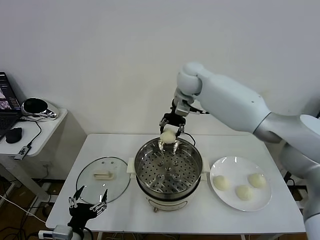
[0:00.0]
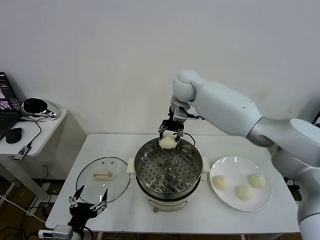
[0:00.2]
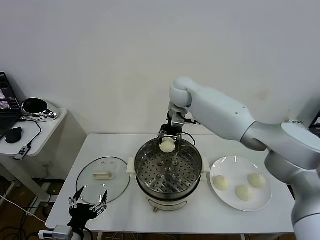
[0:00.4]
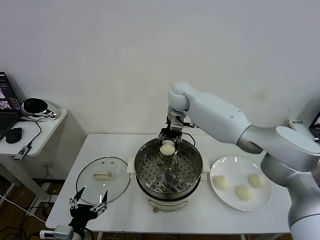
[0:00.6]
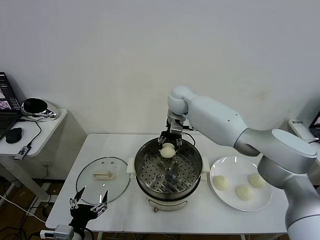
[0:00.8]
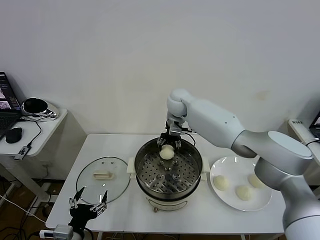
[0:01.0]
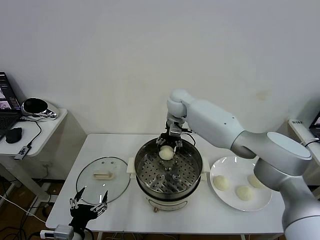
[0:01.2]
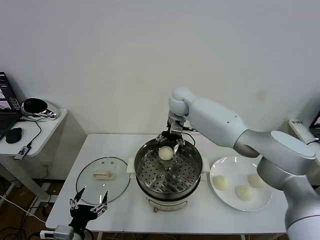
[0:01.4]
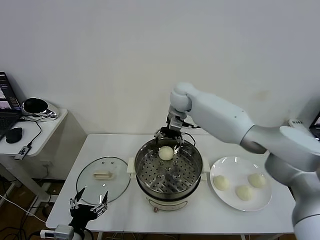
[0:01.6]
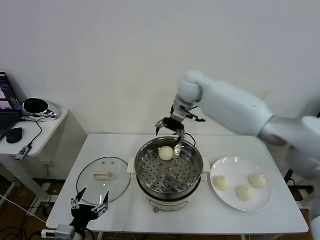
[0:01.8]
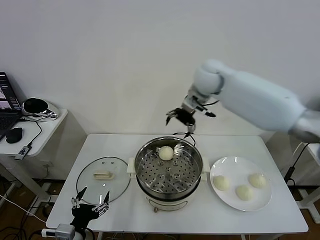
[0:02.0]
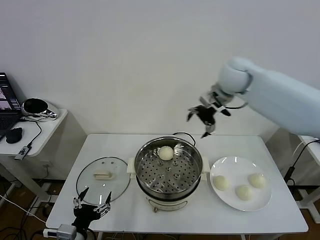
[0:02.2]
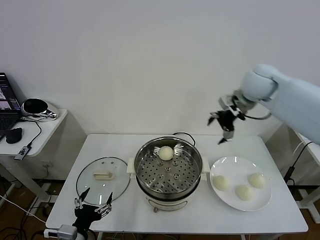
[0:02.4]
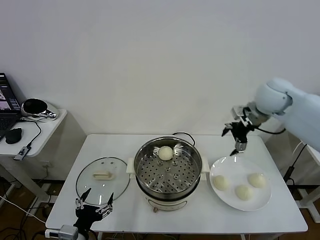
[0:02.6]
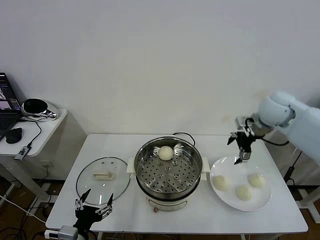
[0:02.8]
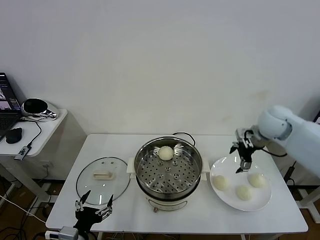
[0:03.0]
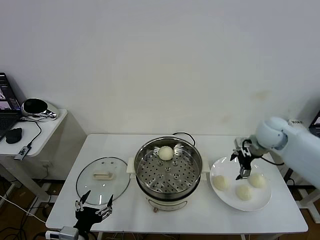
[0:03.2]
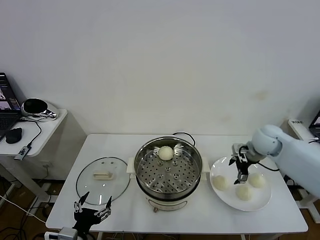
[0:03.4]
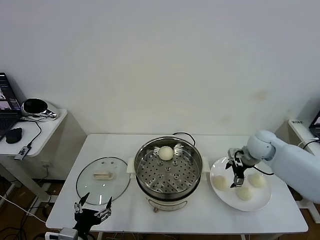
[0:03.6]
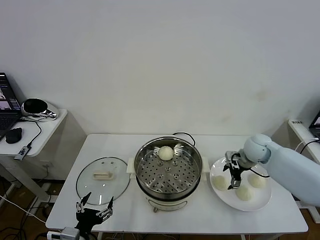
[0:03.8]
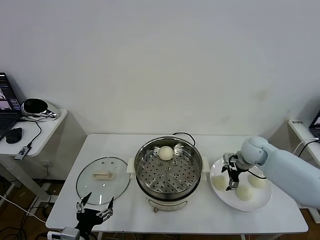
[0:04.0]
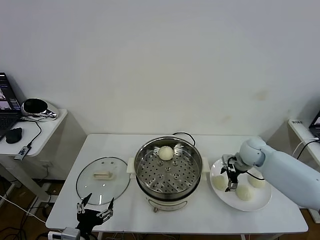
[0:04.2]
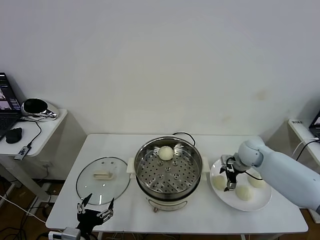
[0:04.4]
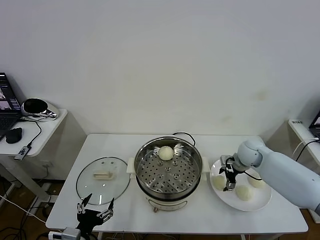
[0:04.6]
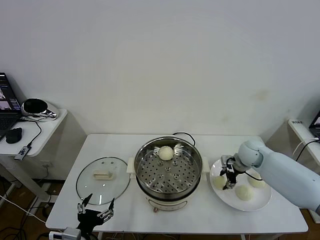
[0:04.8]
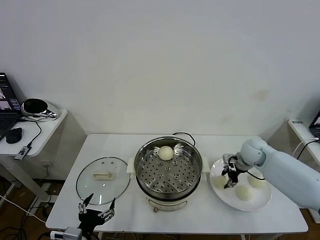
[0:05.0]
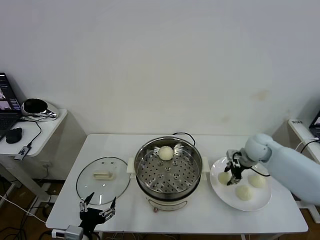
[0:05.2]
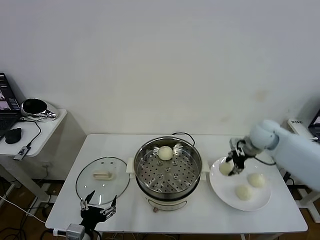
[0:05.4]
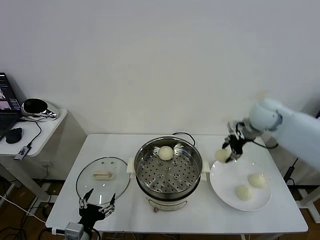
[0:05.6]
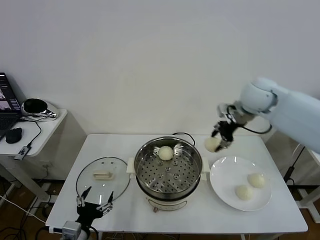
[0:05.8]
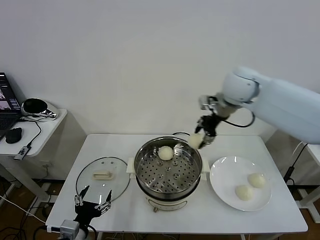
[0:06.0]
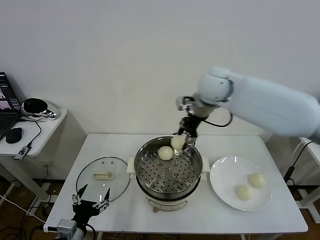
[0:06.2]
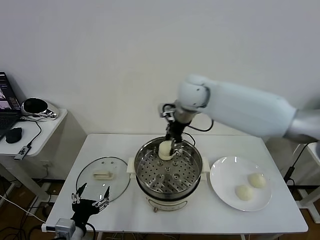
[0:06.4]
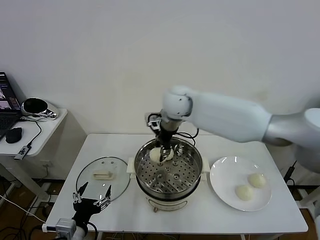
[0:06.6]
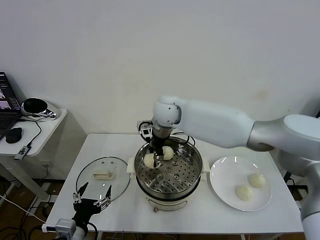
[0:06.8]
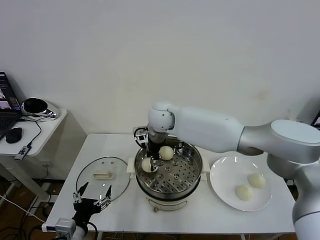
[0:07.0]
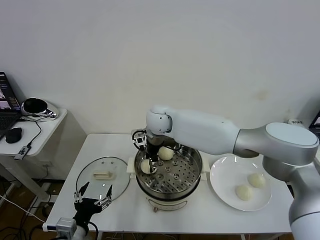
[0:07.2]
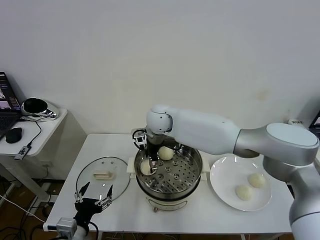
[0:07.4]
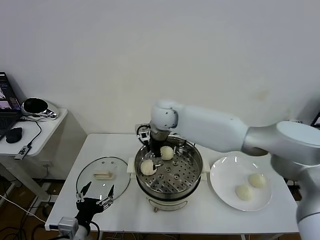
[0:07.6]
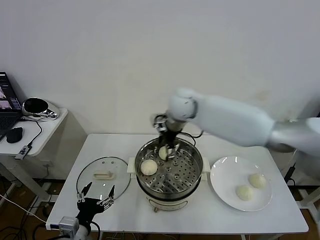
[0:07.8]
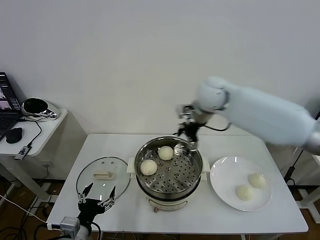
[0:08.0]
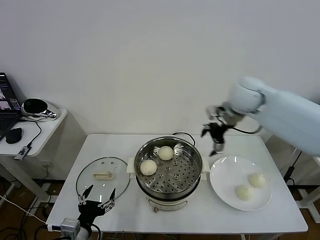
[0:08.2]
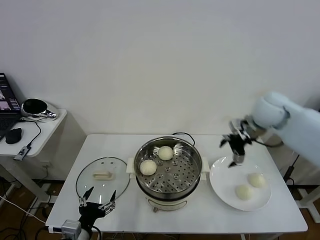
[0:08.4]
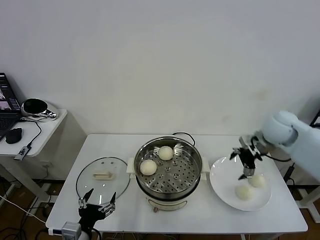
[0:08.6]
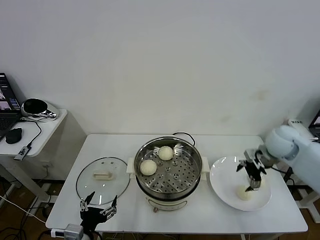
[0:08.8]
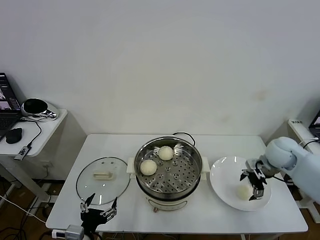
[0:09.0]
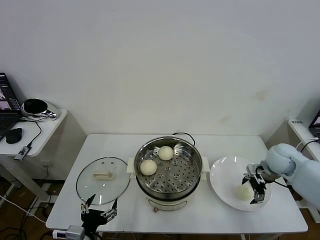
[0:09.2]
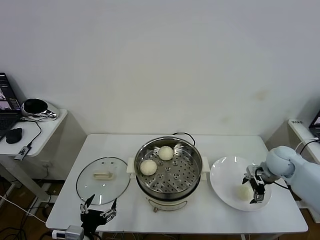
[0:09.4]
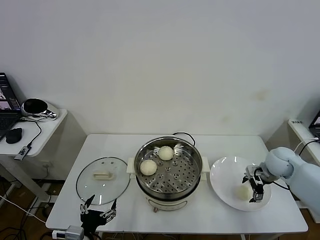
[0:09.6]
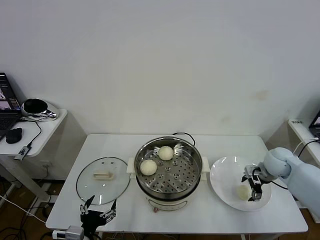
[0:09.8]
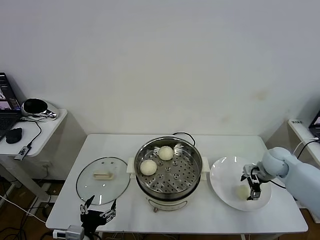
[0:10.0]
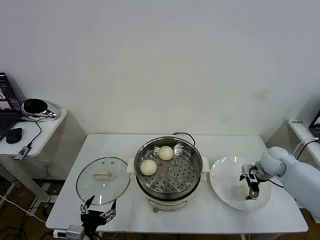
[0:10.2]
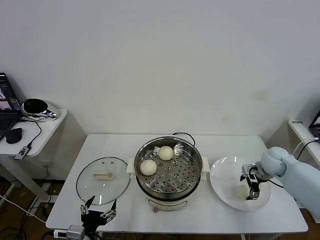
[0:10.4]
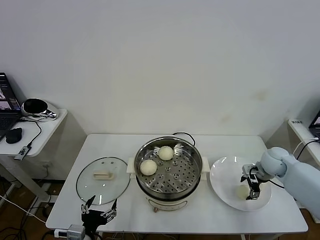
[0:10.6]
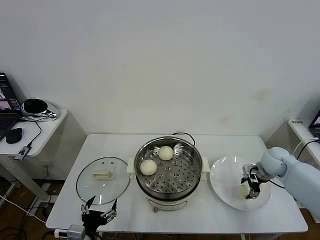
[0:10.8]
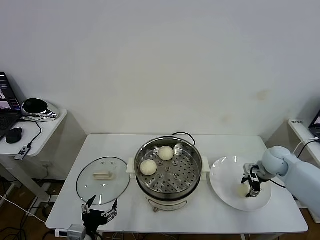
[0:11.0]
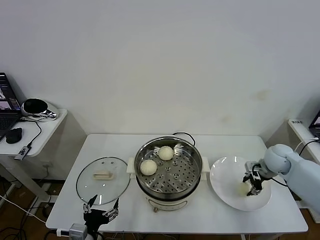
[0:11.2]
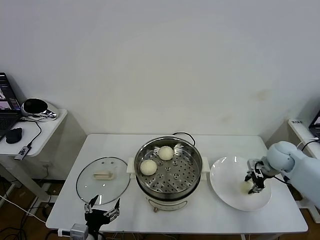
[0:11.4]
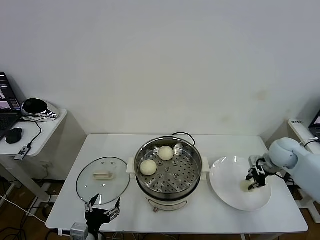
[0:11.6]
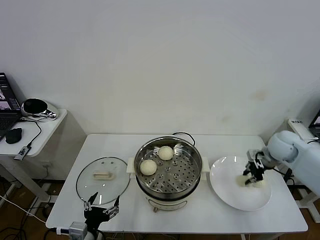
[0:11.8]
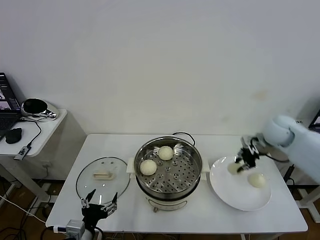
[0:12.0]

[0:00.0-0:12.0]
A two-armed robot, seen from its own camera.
Task of the whole recording: take steamed baozi put them in steamer then cover it.
Step, 1.6 to 4.8 s: Grasp the baozi in the plate with right gripper.
Step, 5.0 to 7.4 s: Place the baozi on the steamer with right gripper.
Step, 7.6 to 11.0 s: Grasp the baozi in the plate with right gripper.
0.0 to 1.6 s: The right gripper goes downward and returns, some 10 cm each way, and opens its fingers.
1.6 to 3.0 s: The right gripper is displaced to the right and backward by about 30 cm.
3.0 to 4.4 s: The right gripper travels downward by roughly 15 cm.
4.4 to 6.0 s: The right gripper travels upward and to the left by approximately 30 cm, and closes its fingers.
6.0 to 7.6 s: The right gripper goes some 15 cm to the left and downward, and opens.
7.6 to 9.0 s: The right gripper shifts approximately 35 cm to the right.
9.0 to 10.4 s: The right gripper is displaced downward by roughly 5 cm.
10.4 to 12.0 s: The right gripper moves upward, some 15 cm, and closes its fingers.

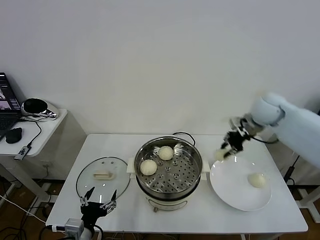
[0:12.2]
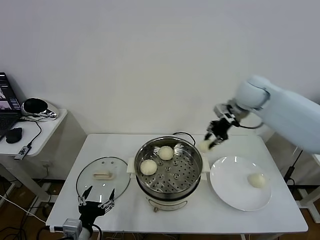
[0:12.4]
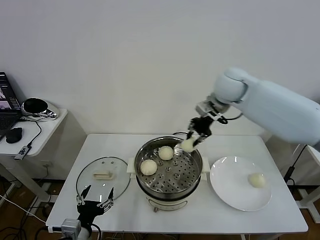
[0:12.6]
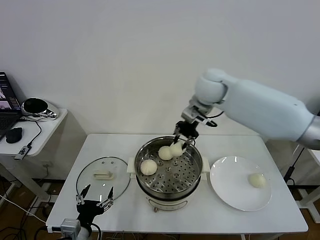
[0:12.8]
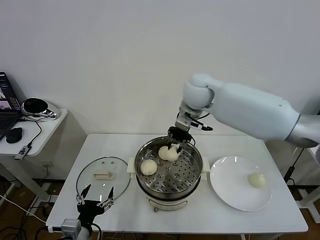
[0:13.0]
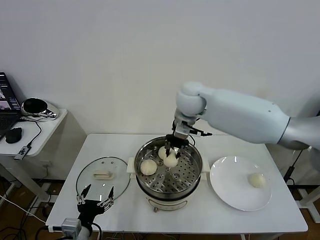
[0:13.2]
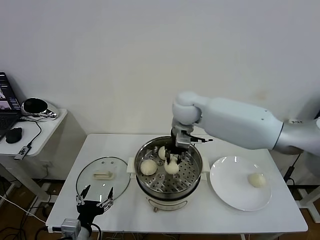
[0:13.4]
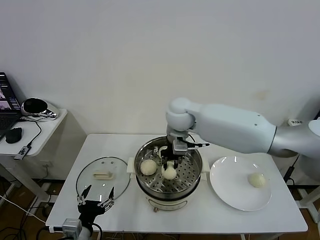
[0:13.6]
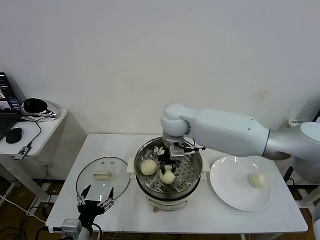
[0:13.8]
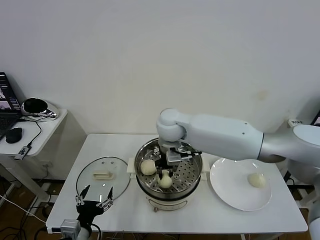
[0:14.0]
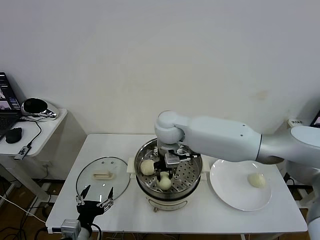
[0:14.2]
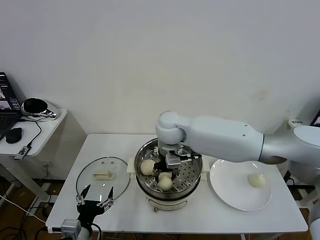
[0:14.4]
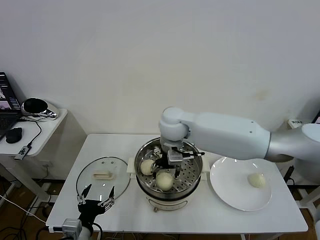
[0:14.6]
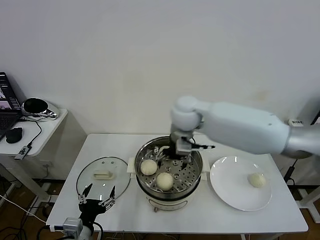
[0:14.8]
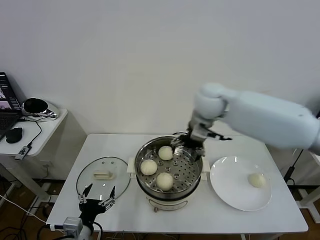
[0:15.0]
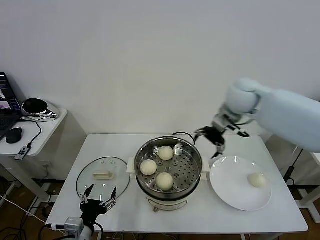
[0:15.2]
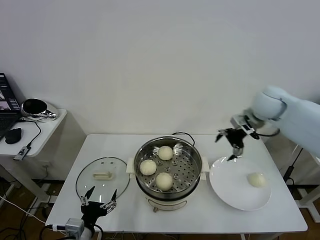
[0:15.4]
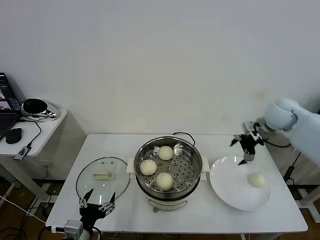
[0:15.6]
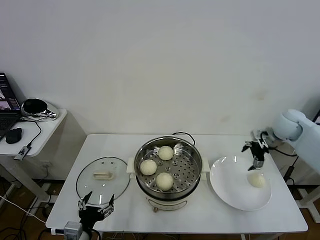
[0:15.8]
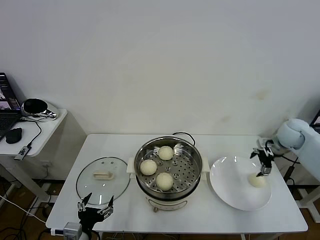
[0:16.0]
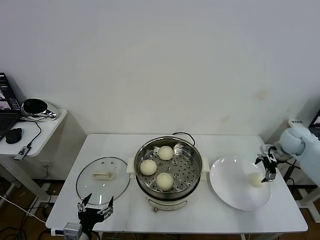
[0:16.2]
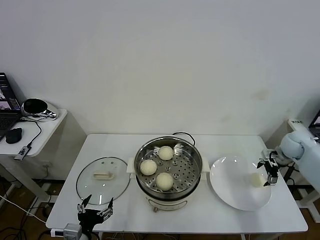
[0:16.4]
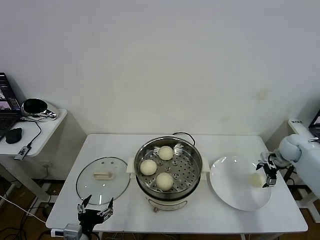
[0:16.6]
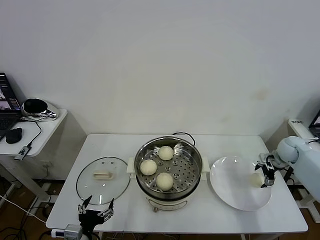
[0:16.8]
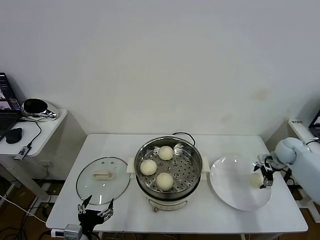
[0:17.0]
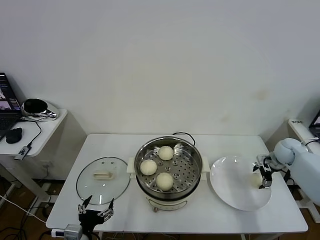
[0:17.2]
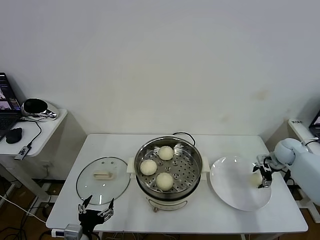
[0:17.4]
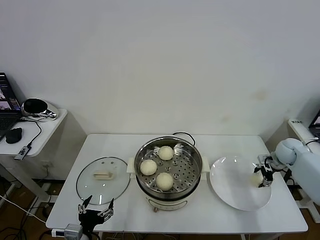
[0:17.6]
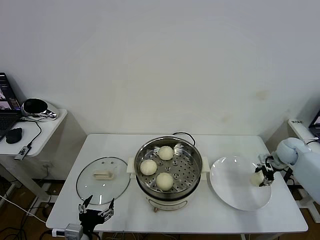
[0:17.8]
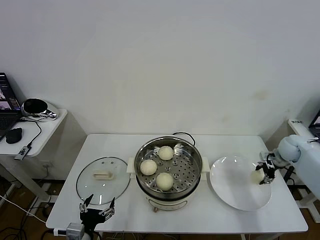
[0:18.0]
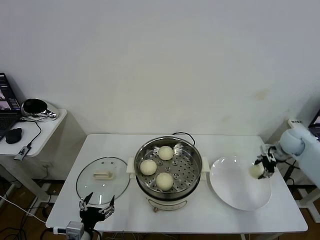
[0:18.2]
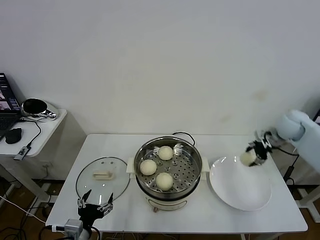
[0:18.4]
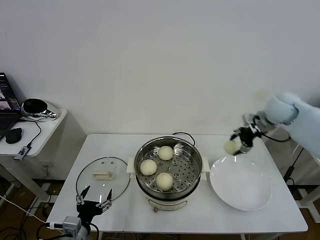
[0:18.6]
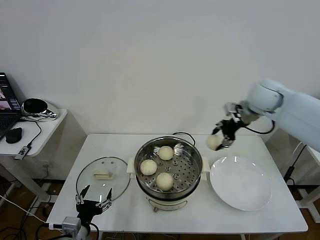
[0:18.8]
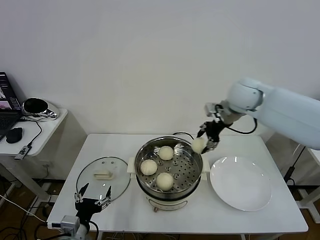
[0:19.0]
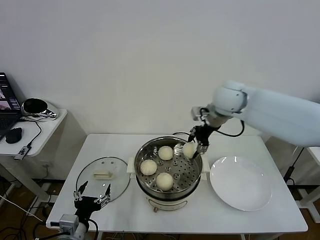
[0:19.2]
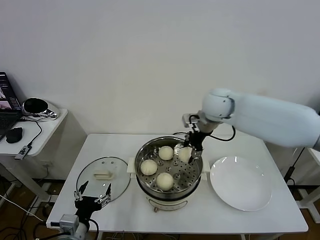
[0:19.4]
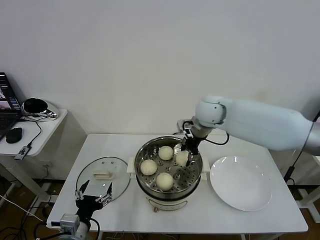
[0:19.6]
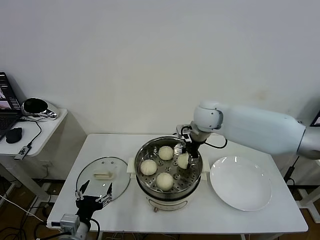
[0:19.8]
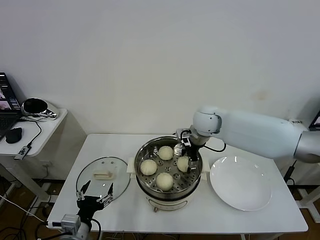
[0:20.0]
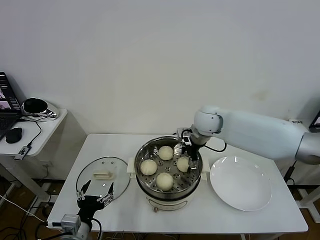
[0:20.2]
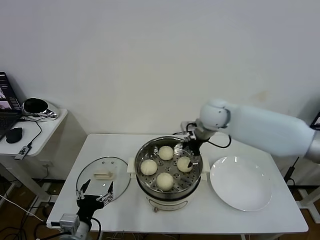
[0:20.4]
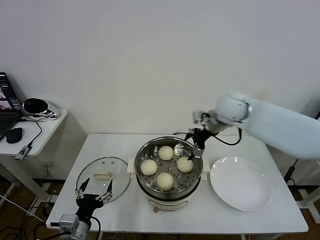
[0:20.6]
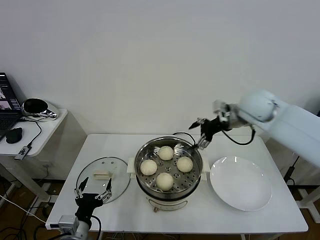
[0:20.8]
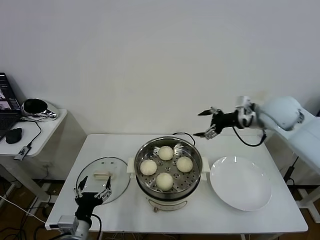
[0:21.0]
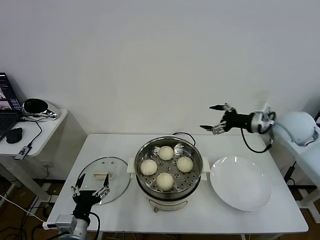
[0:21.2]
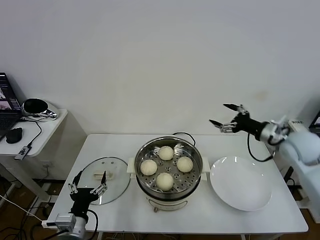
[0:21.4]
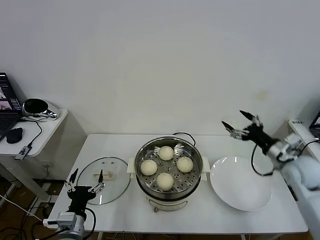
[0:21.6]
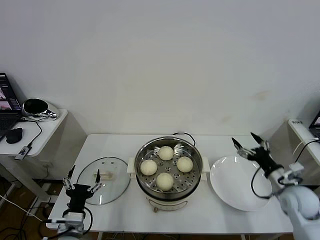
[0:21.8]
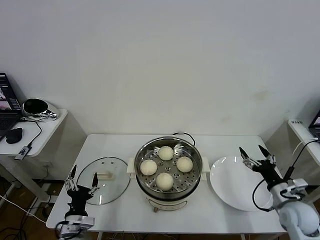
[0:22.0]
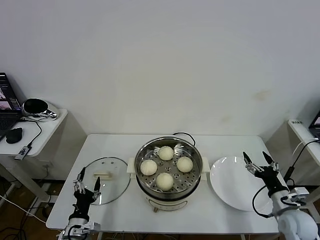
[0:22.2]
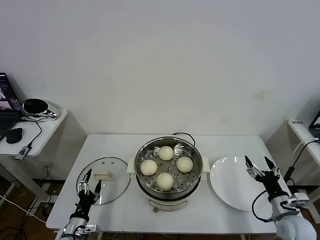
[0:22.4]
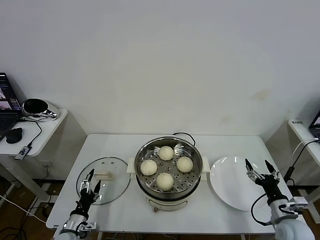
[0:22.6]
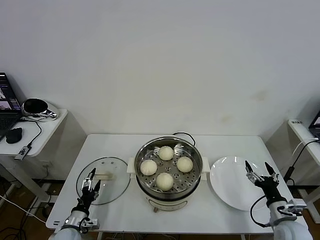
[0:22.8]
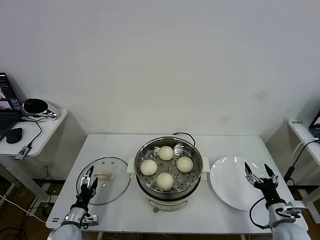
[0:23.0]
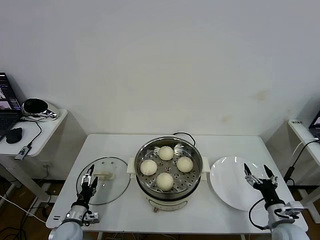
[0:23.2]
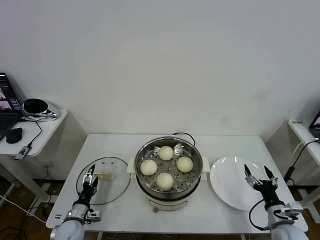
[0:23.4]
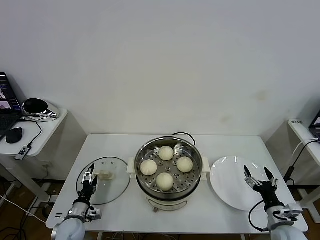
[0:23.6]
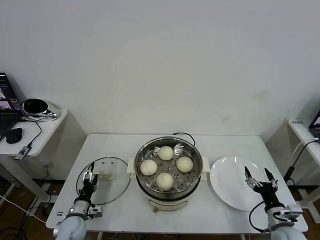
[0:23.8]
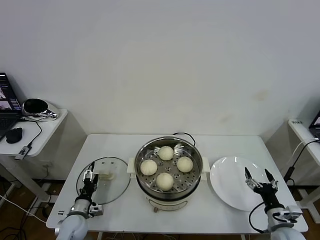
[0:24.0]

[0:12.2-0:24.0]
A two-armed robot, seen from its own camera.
Task of the whole recording: take steamed baozi put them in steamer then cover it.
Step, 12.2 to 14.6 s: Place the baozi on the steamer with right gripper.
Step, 14.8 to 17.8 s: Grasp the baozi in the plate with right gripper.
Step, 18.0 to 20.2 s: Place the baozi on the steamer with right gripper.
12.2 to 13.6 s: The right gripper heads to the left, covering roughly 25 cm.
13.6 to 15.2 s: The right gripper moves to the right, some 20 cm, and opens its fingers.
15.2 to 16.6 s: The right gripper goes approximately 30 cm to the right and downward.
16.6 to 18.2 s: The right gripper shifts by some 5 cm, and closes.
18.2 to 19.6 s: The right gripper is displaced to the left by roughly 30 cm.
19.6 to 21.0 s: The right gripper goes about 20 cm to the right, and opens its fingers.
21.0 to 22.6 s: The right gripper goes roughly 35 cm downward and backward; the left gripper shifts roughly 15 cm downward, to the left and forward.
22.6 to 24.0 s: The left gripper heads forward, covering some 5 cm.
